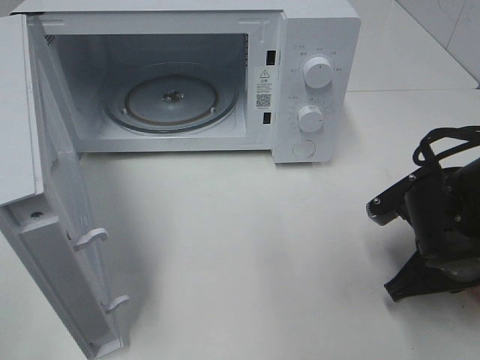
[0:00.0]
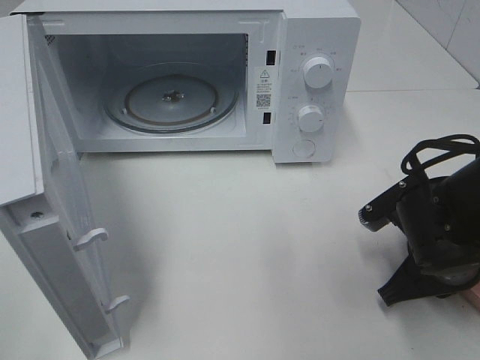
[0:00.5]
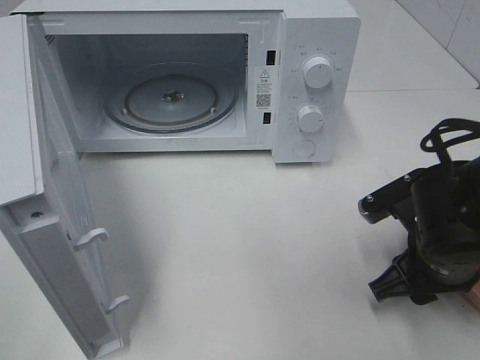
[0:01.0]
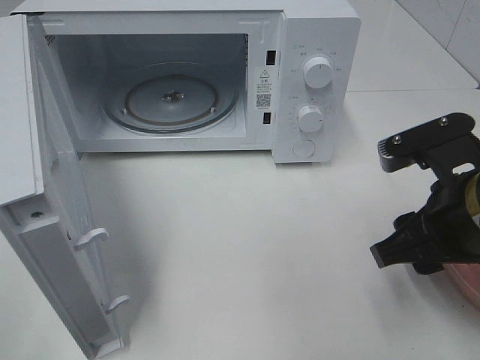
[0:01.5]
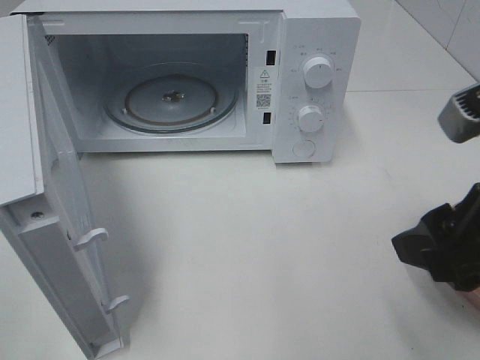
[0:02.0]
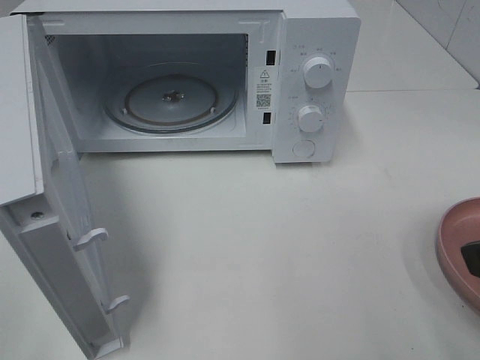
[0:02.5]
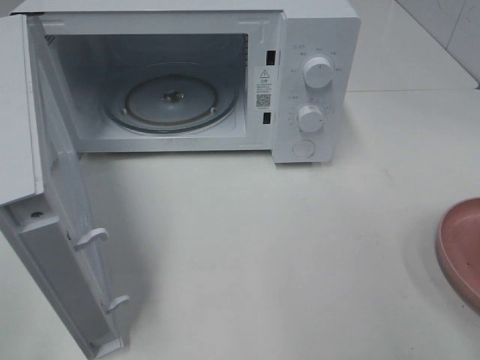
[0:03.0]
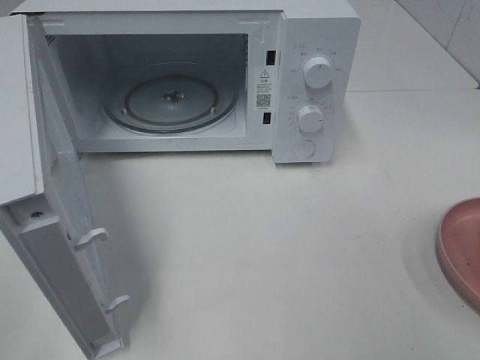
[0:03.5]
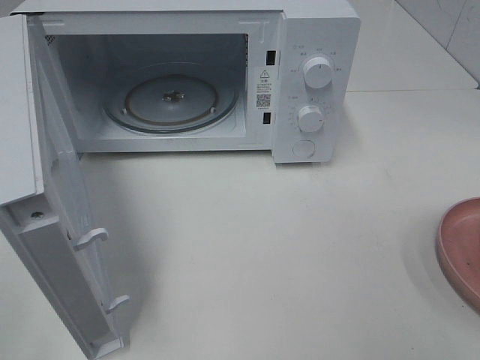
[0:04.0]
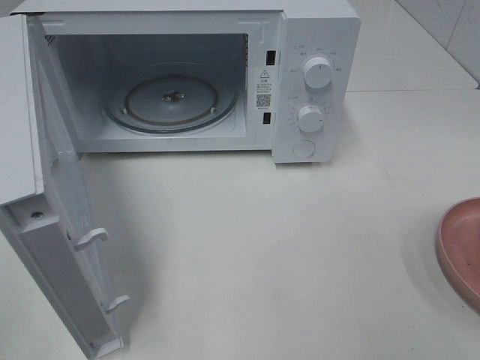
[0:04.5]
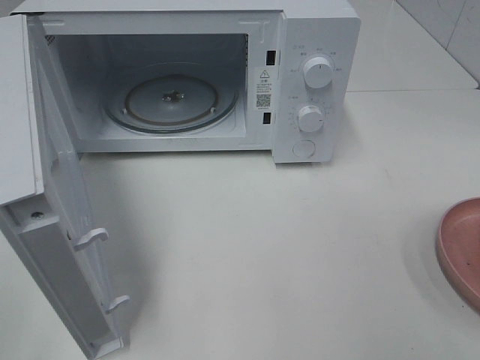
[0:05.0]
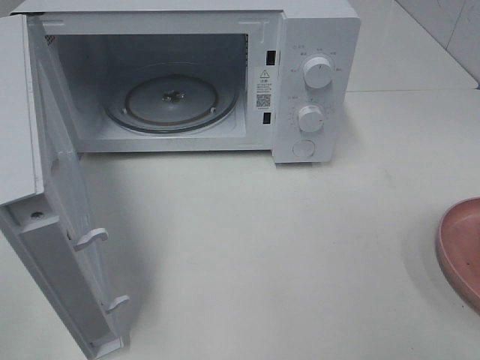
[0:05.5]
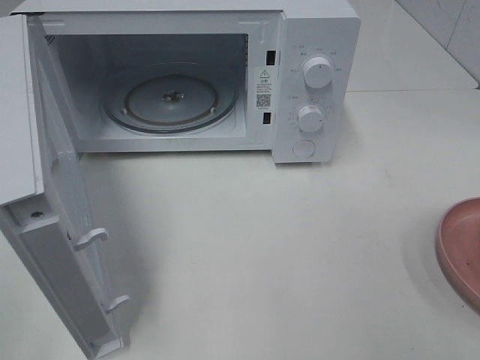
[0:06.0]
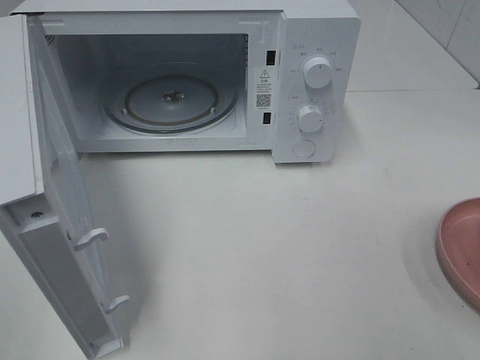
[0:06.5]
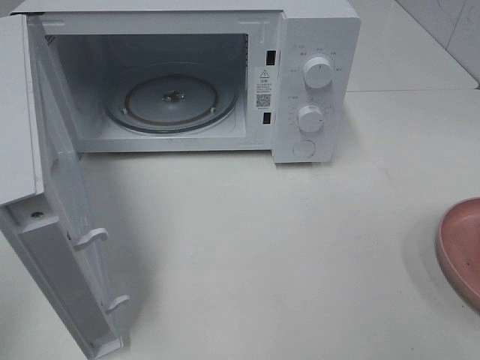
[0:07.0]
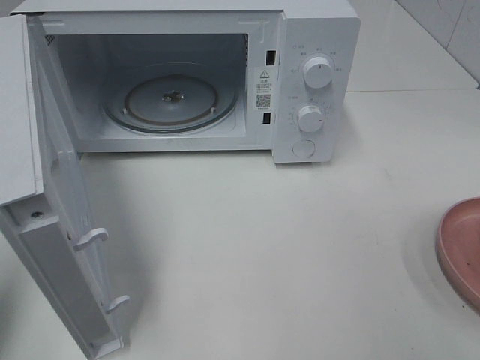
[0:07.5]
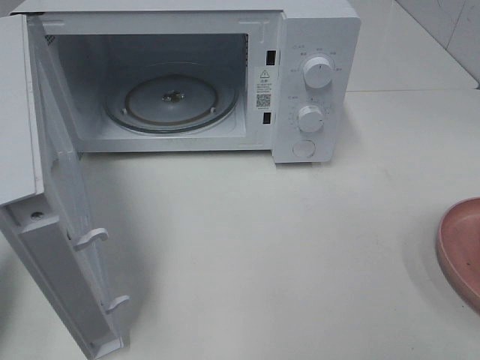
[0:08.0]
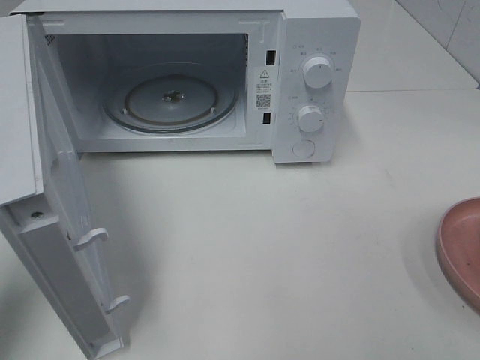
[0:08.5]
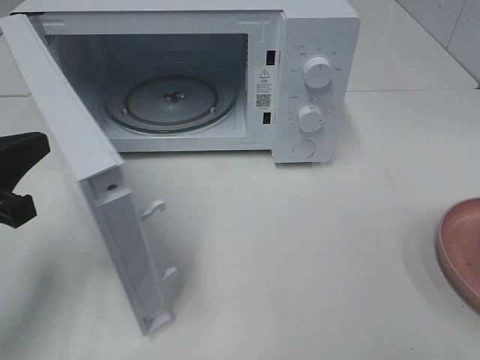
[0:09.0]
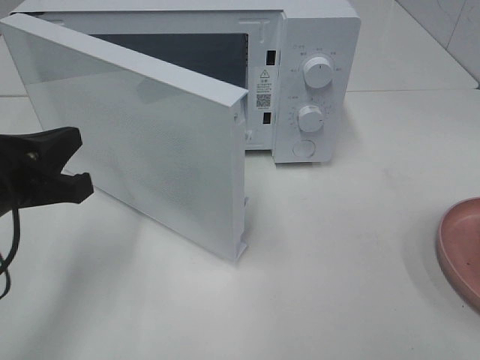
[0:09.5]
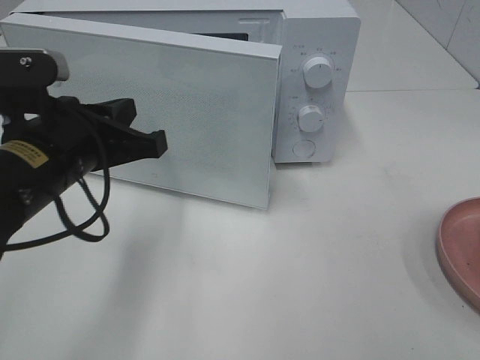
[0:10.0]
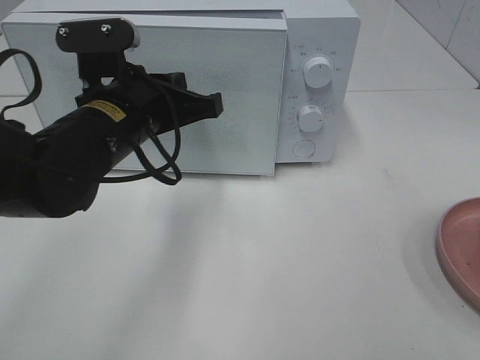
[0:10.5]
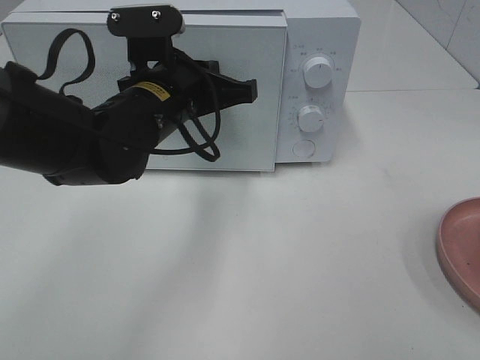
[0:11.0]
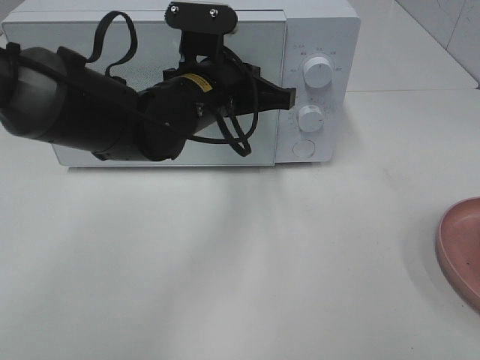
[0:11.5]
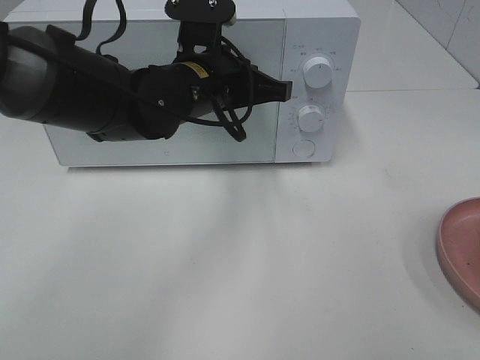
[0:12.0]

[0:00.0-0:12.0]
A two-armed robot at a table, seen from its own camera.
Task of the whole recording: Heat the burger.
0:00.0 to 0:02.0: The right gripper shifts approximately 15 cm upward and backward, and opens up.
0:02.0 to 0:04.0: The right gripper heads backward and to the right, covering some 15 cm.
0:04.0 to 0:06.0: Neither gripper changes place.
0:06.0 to 0:08.0: The left gripper moves forward, some 15 cm, and closes up.
0:08.0 to 0:10.0: The left gripper moves to the right and forward, roughly 20 cm.
0:10.0 to 0:12.0: The left gripper goes approximately 15 cm to the right and forward.

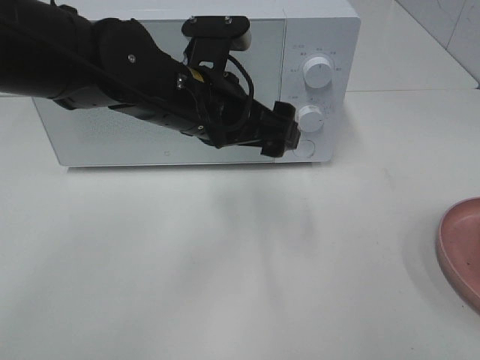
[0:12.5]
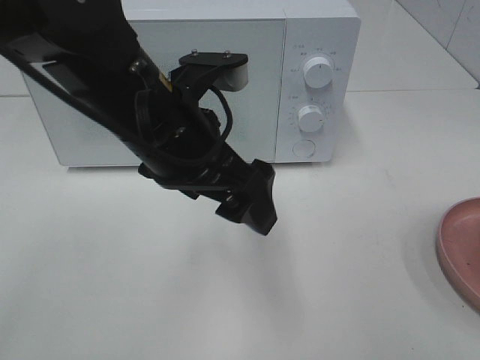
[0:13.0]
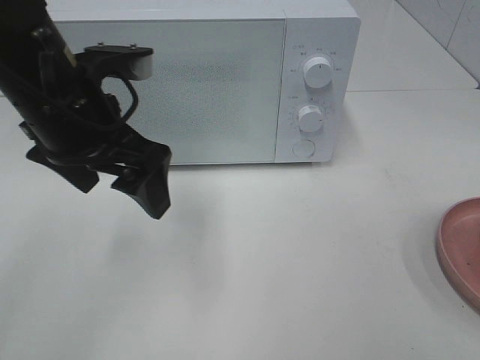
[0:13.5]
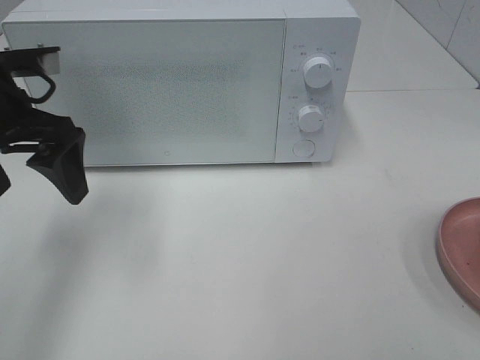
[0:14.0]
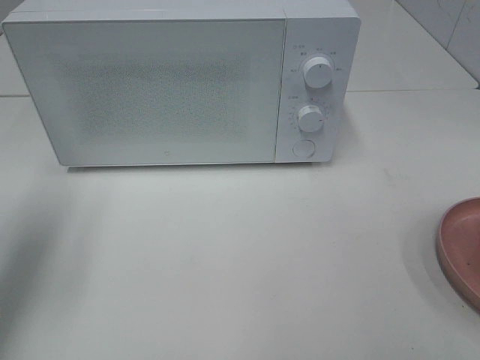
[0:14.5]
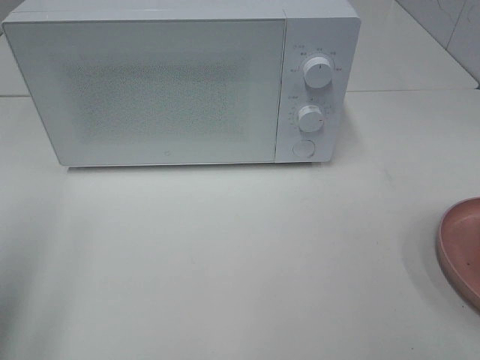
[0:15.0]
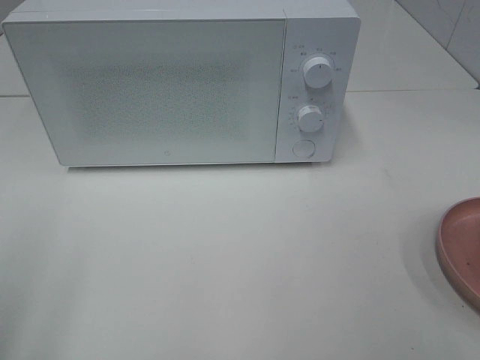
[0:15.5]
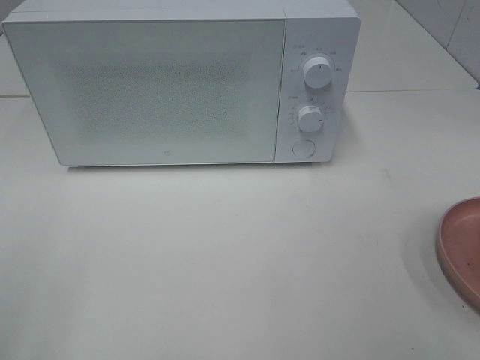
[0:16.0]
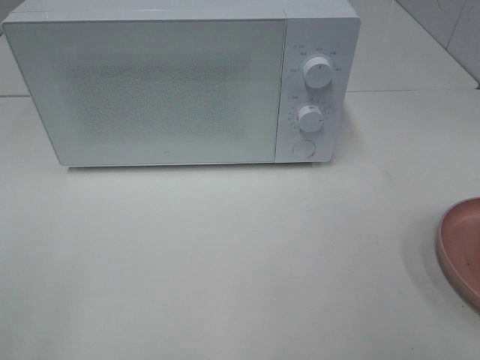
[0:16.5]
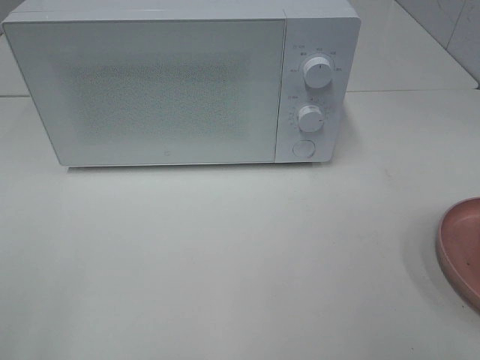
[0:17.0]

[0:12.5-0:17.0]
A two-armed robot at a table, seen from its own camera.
Task of the whole recording: Heat the burger.
0:12.5 to 0:14.5: The left gripper goes roughly 30 cm to the left.
0:14.5 to 0:17.0: The left gripper heads backward, covering some 25 cm.

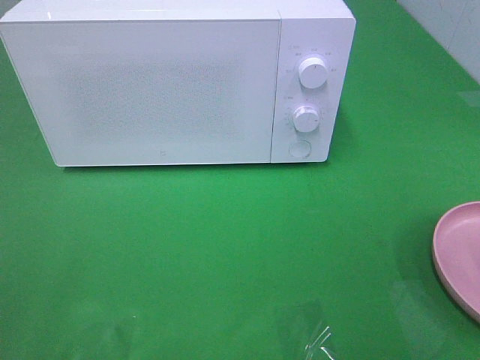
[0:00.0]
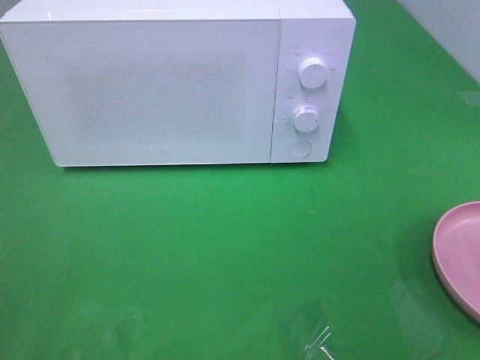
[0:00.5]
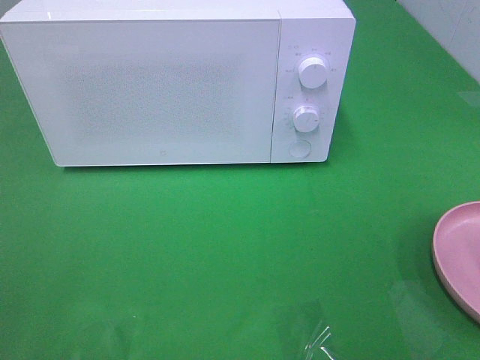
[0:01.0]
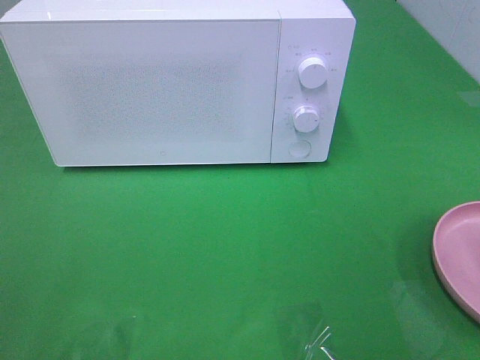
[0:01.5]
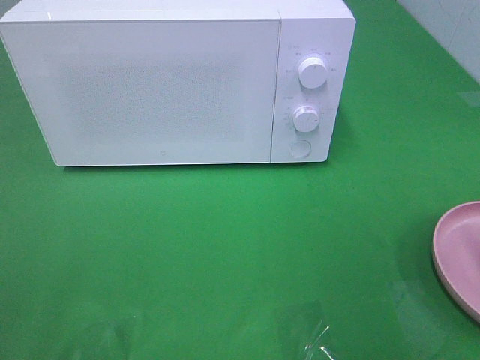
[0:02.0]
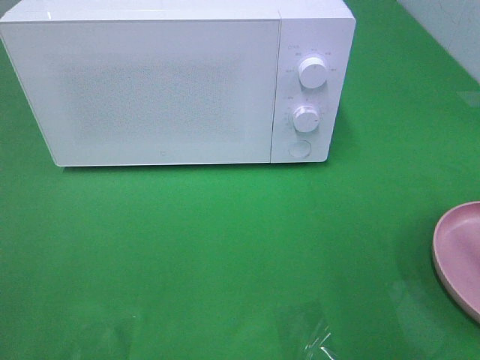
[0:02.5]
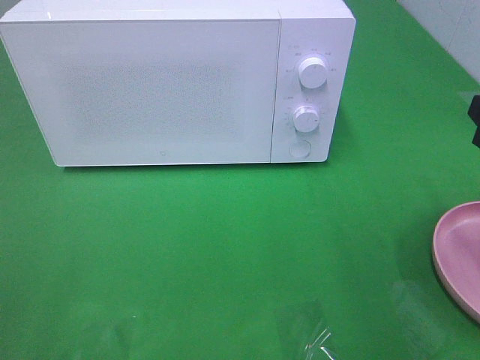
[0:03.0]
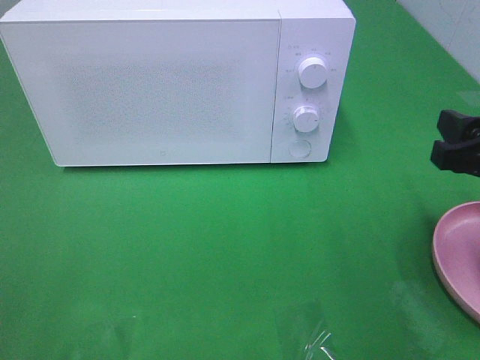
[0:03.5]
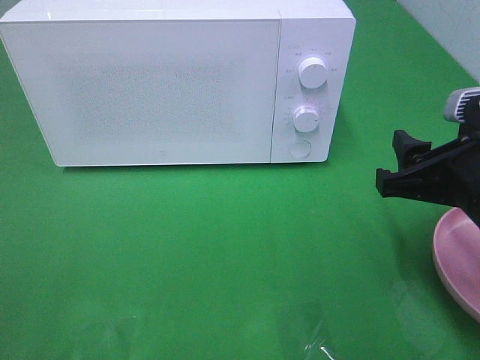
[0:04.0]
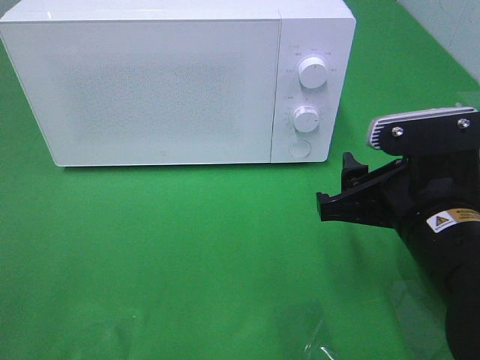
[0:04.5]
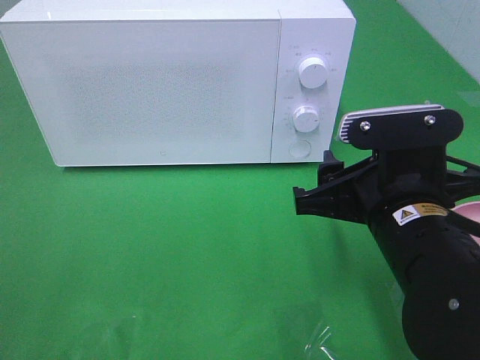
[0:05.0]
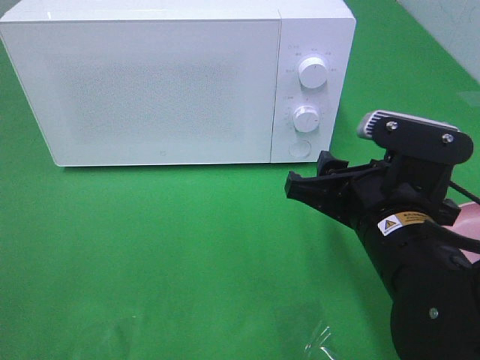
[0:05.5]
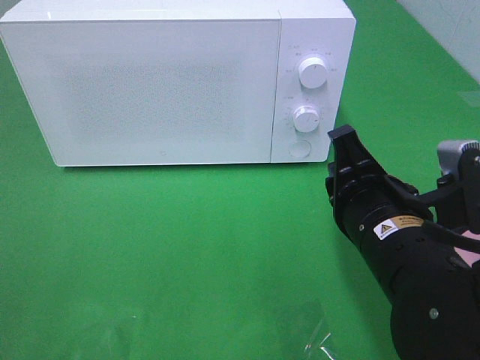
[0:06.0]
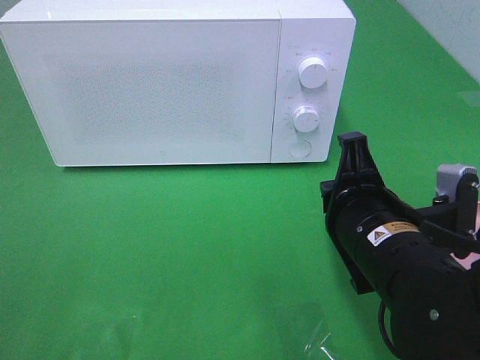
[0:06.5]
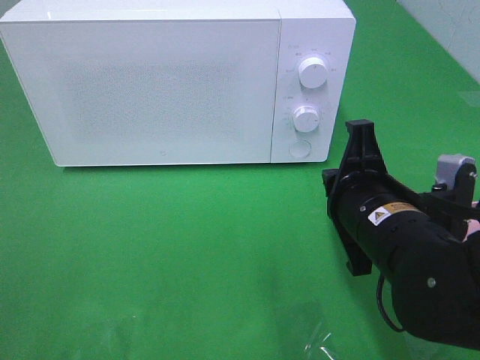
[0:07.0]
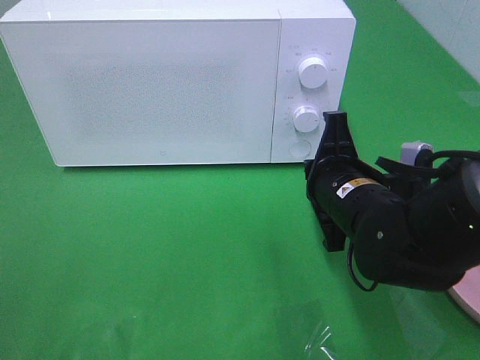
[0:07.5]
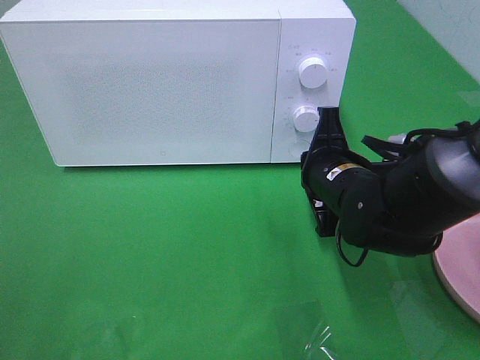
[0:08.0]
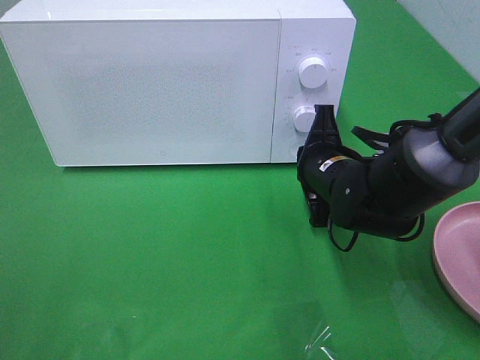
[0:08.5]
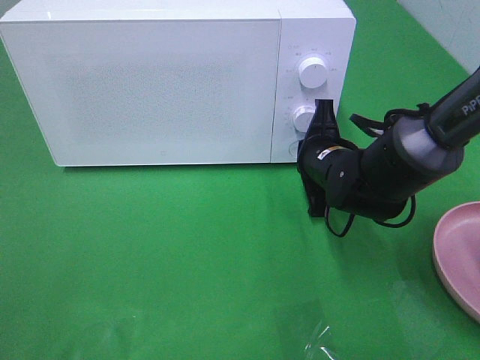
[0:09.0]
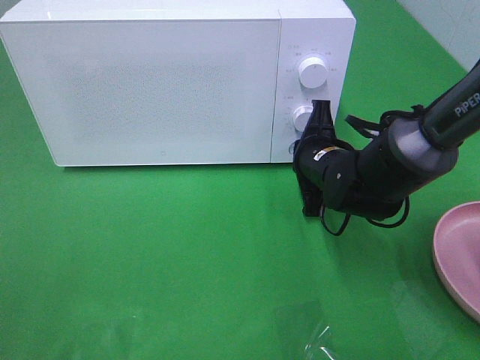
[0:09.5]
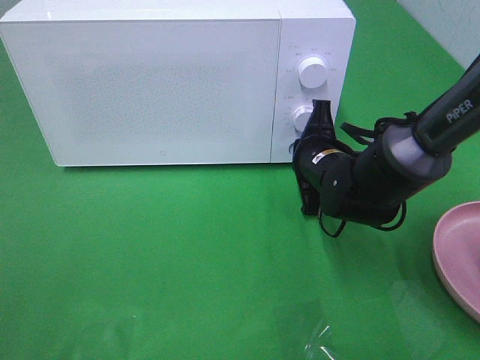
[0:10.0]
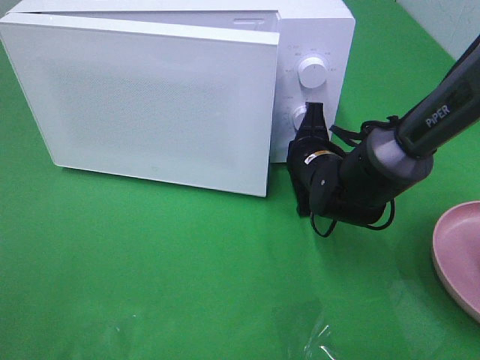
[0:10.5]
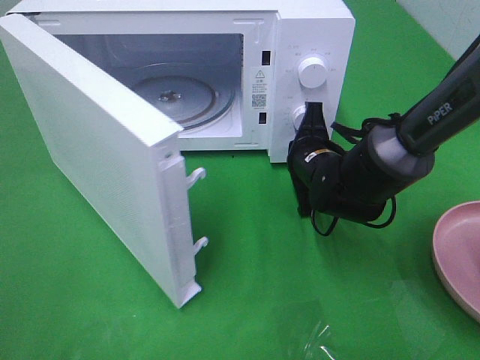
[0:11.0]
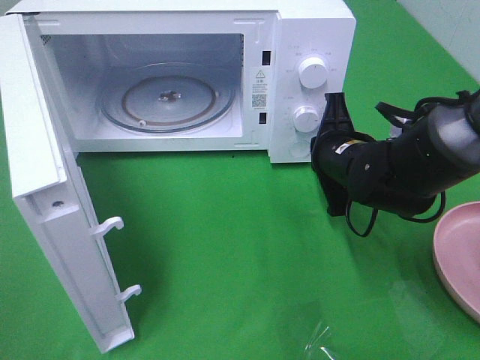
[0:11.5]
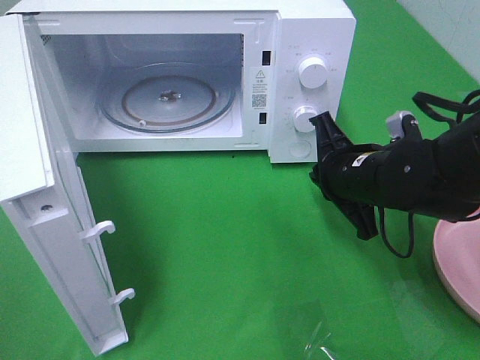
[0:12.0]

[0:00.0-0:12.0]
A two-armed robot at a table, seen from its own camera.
Task of the whole recording: Heat the burger.
Step, 0:00.0 to 0:11.5: Right hand: press the switch.
0:02.0 to 0:04.0: The right gripper goes roughly 15 cm downward, to the left and forward.
0:04.0 to 0:06.0: The right gripper is displaced to the left by roughly 10 cm, and closes its fingers.
0:06.0 to 0:08.0: The right gripper is displaced forward by roughly 10 cm.
0:08.0 to 0:10.0: The right gripper moves forward, roughly 5 cm.
0:10.0 to 0:12.0: The right gripper goes roughly 5 cm backward.
